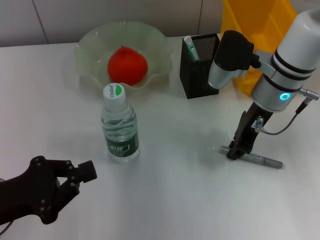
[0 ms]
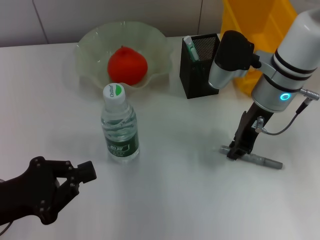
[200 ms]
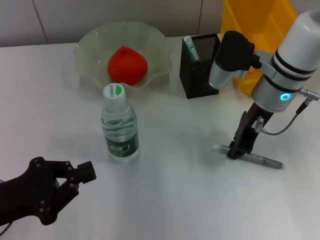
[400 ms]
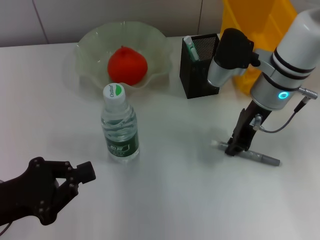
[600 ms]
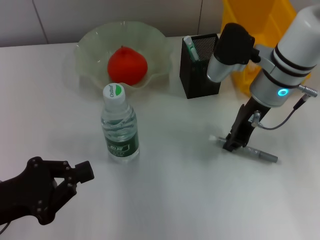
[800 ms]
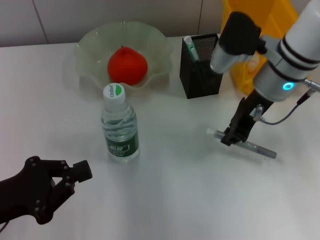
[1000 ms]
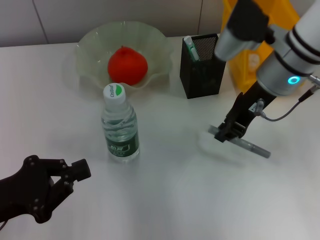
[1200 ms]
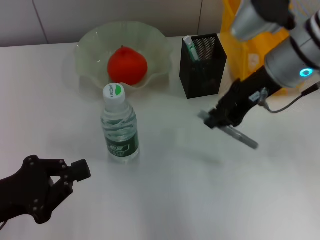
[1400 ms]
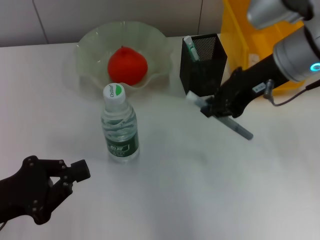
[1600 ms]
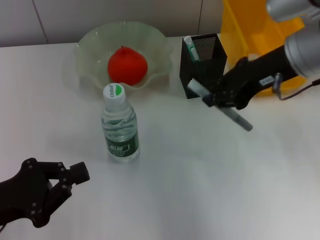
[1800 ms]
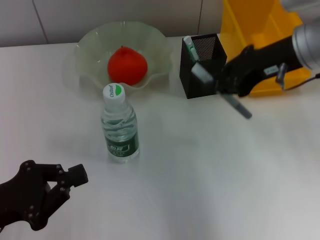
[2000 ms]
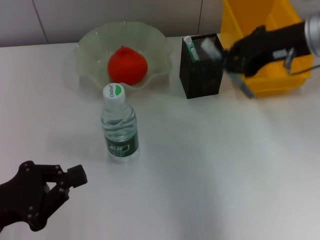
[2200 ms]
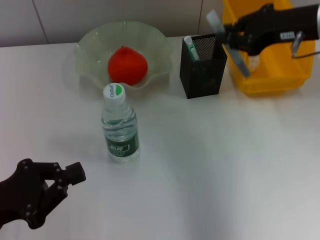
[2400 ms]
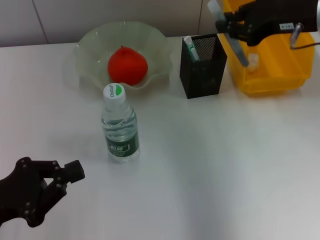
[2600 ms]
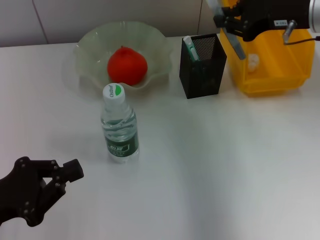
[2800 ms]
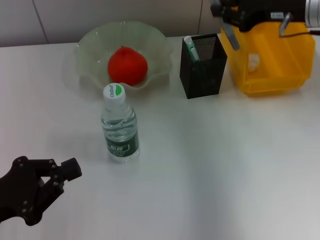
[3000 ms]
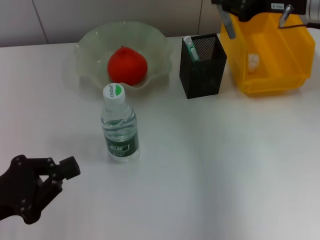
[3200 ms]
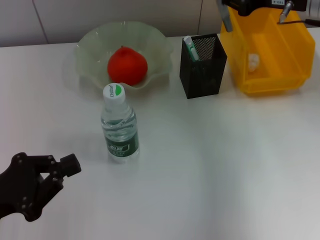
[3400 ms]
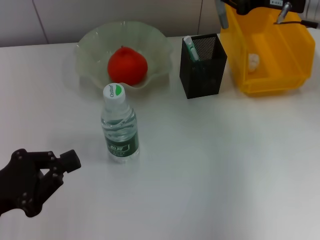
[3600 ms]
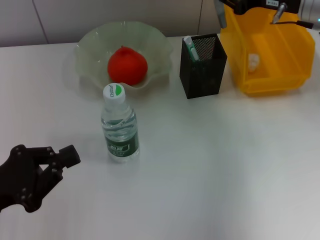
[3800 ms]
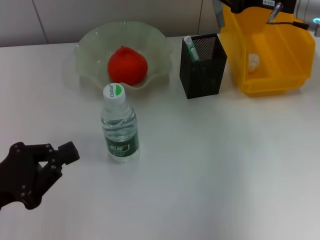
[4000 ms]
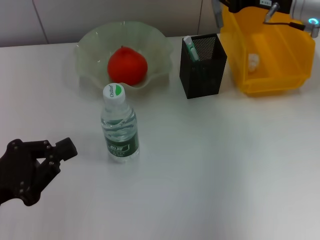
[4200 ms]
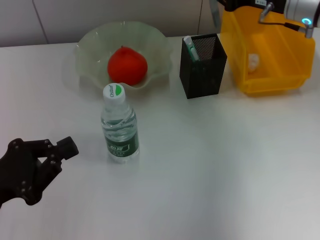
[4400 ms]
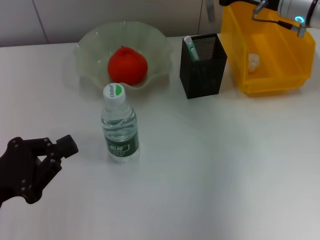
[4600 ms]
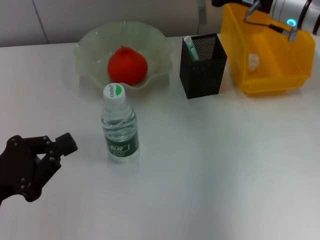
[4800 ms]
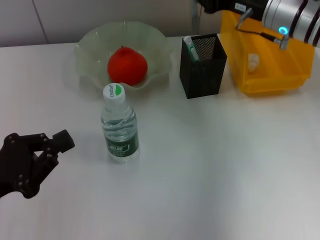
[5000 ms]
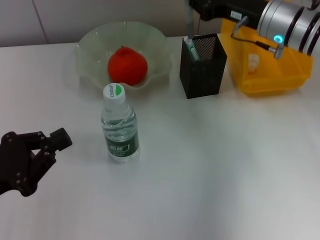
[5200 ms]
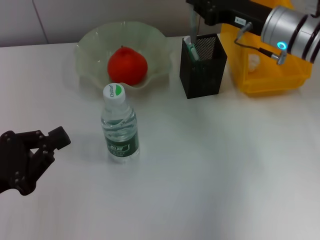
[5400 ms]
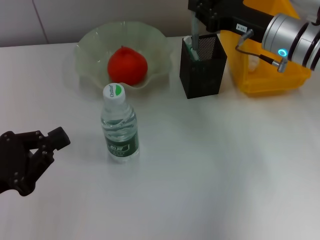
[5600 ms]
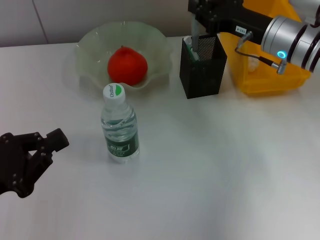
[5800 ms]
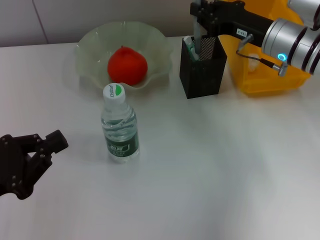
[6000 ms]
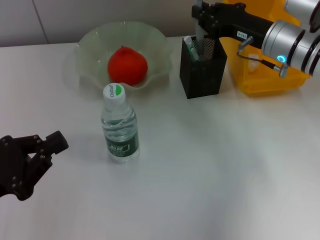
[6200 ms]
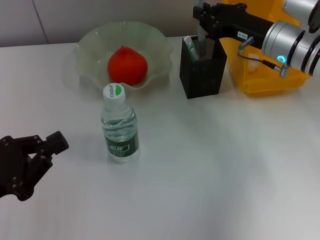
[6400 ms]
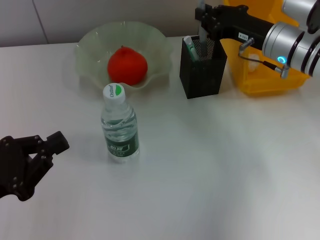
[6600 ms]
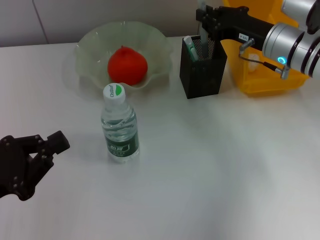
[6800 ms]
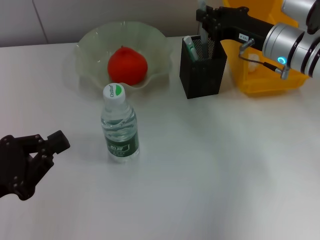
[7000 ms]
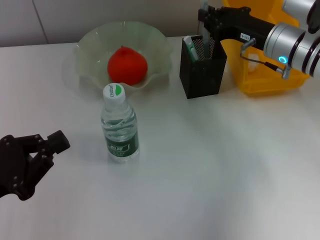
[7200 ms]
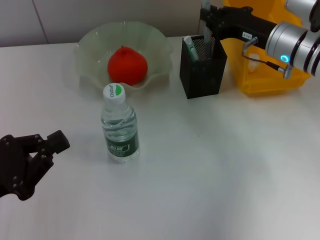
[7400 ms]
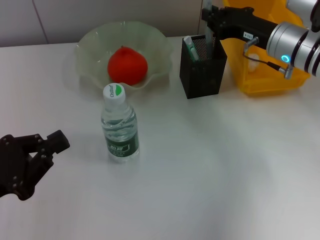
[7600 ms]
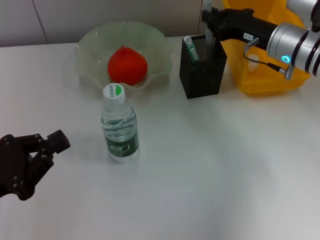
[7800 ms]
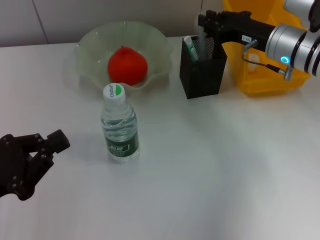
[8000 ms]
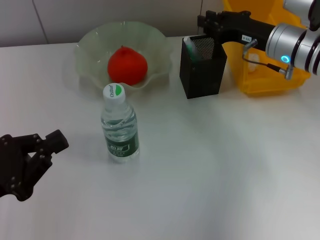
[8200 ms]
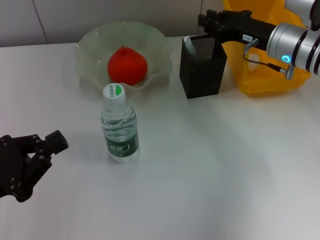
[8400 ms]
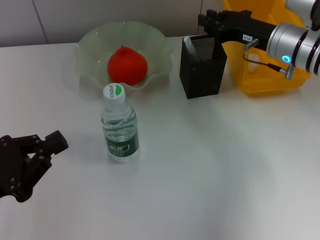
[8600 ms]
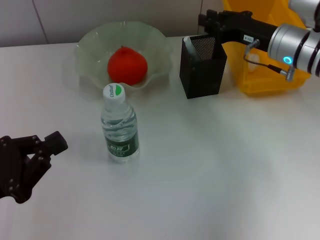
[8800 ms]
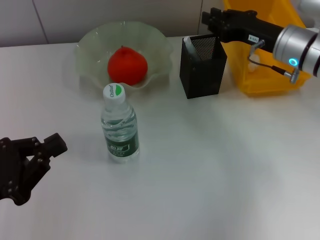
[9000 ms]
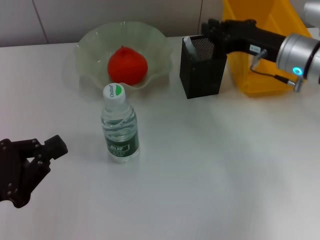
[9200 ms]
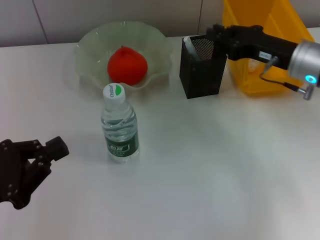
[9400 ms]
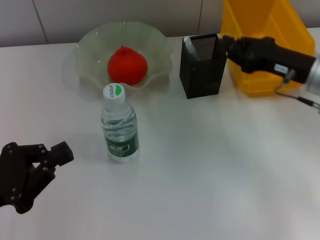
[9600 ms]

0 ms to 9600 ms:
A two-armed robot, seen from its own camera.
Step, 600 ms to 8200 ms: Place the gray glue into the pen holder with the right hand.
0 ms to 1600 ms: The right gripper goes about 10 cm upward.
1600 ms to 3200 ms: The right gripper travels to the right and forward by about 10 cm.
3200 ms to 4800 ms: The right gripper shifts by approximately 5 cm.
4800 ms to 6400 ms: The right gripper changes place by approximately 5 cm.
6400 ms to 8000 ms: The grippers stay close to where they were, moving slightly.
8000 ms to 9600 ms: The right gripper moves backward, about 10 cm.

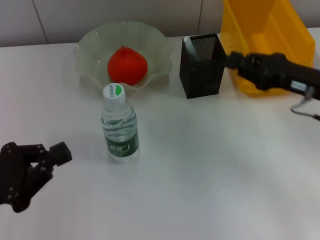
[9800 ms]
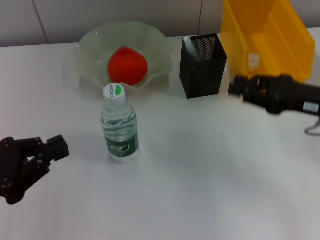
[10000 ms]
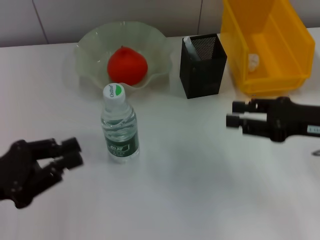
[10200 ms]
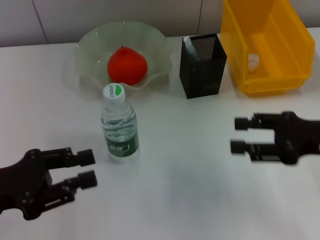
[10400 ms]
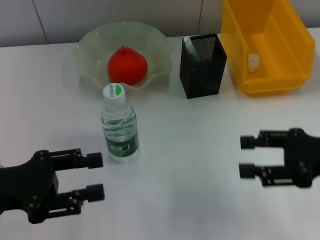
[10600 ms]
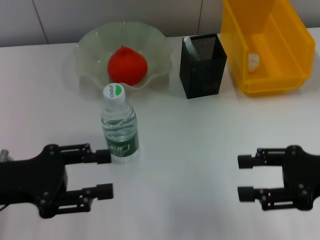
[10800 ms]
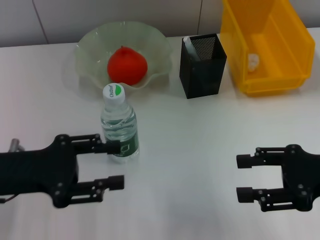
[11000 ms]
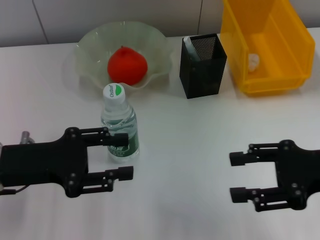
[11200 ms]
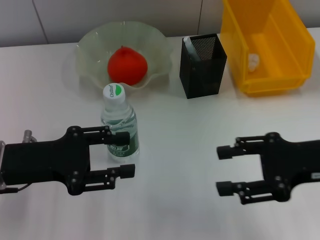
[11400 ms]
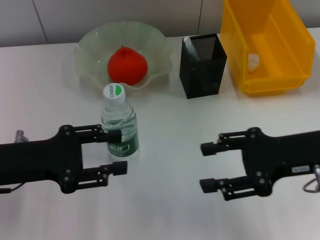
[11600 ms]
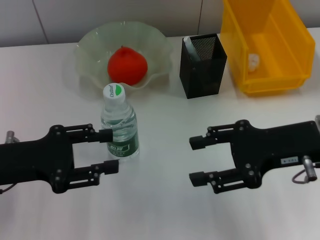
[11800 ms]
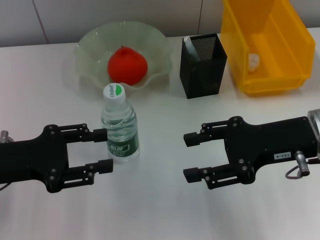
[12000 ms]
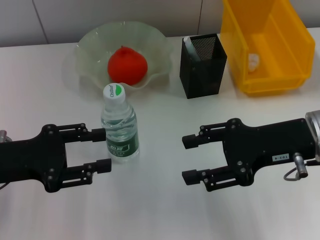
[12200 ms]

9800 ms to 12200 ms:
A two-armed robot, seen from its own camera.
9800 ms to 11000 ms: The right gripper moves backward, some 10 cm, and opens its fingers. Meanwhile the left gripper moves roughly 5 cm, and opens.
11000 ms to 12200 ms: The right gripper shifts about 10 cm to the left and forward.

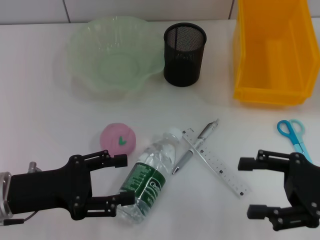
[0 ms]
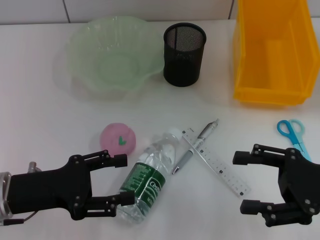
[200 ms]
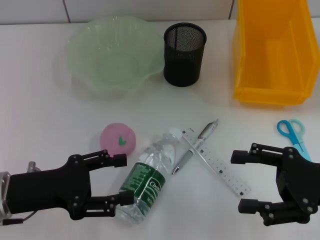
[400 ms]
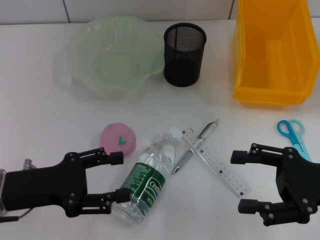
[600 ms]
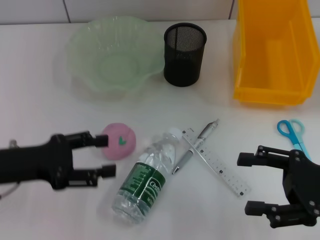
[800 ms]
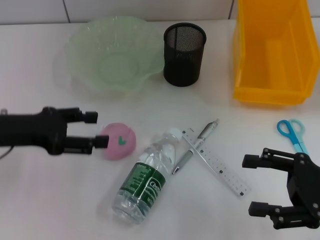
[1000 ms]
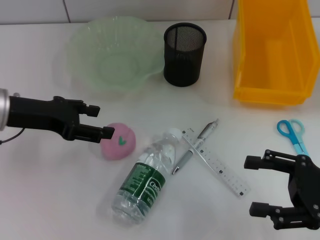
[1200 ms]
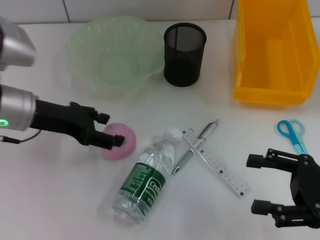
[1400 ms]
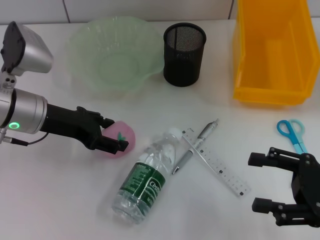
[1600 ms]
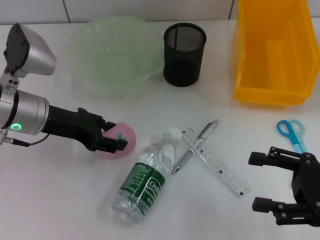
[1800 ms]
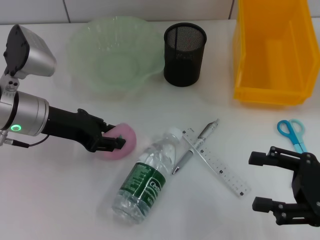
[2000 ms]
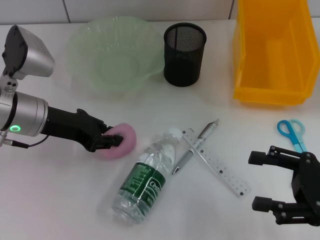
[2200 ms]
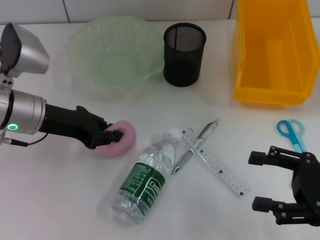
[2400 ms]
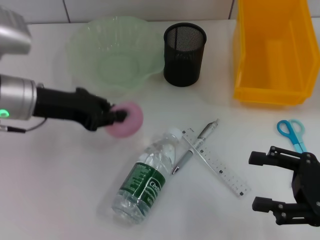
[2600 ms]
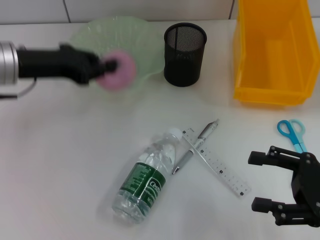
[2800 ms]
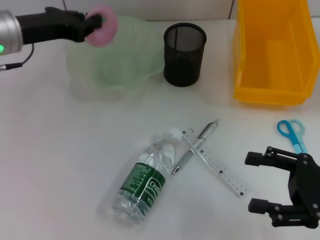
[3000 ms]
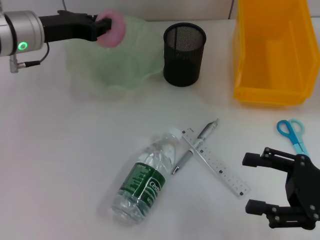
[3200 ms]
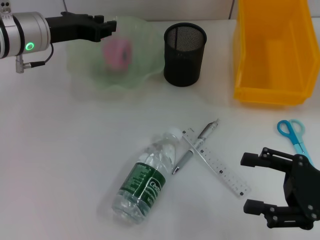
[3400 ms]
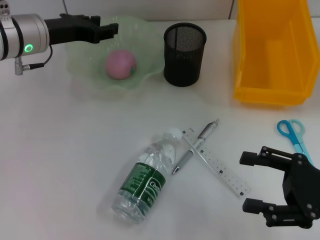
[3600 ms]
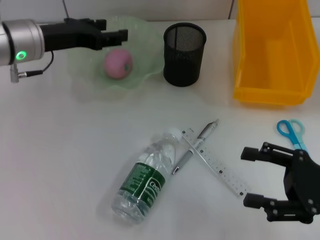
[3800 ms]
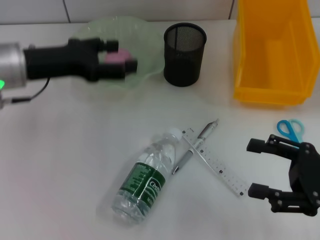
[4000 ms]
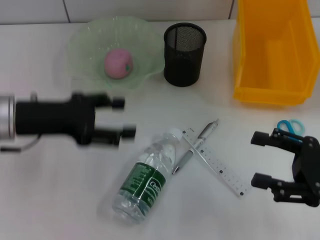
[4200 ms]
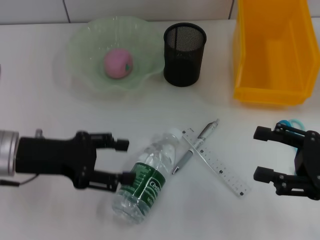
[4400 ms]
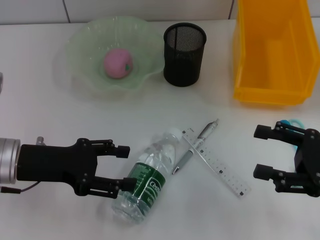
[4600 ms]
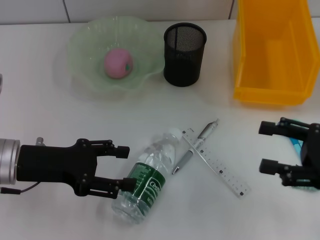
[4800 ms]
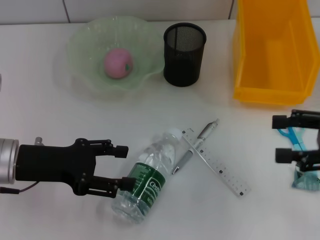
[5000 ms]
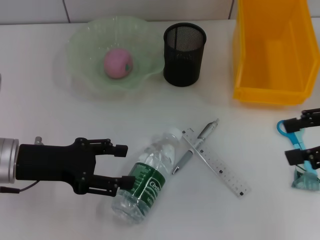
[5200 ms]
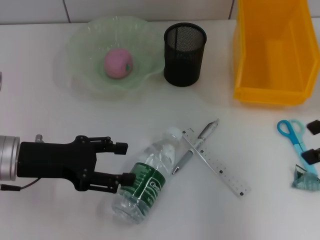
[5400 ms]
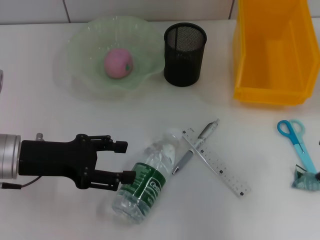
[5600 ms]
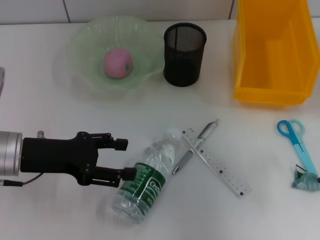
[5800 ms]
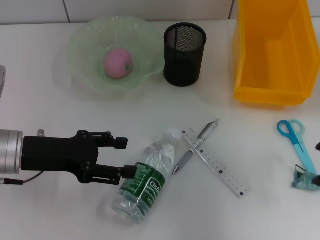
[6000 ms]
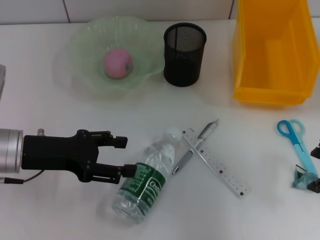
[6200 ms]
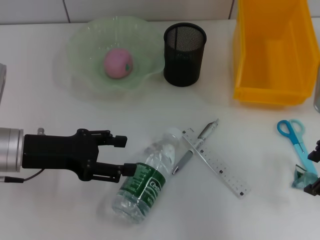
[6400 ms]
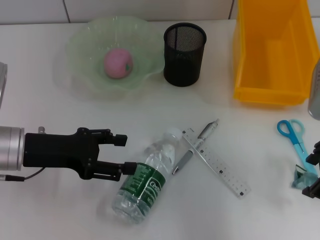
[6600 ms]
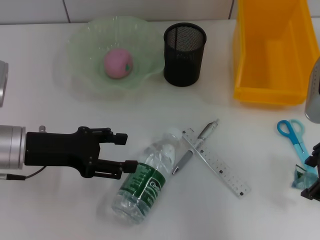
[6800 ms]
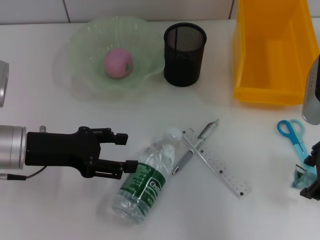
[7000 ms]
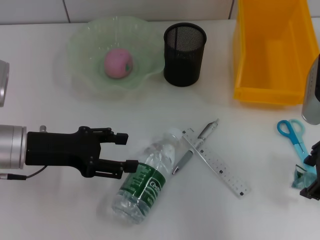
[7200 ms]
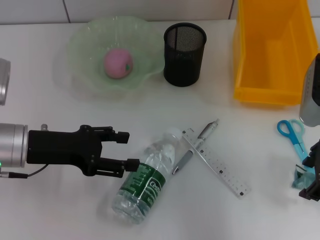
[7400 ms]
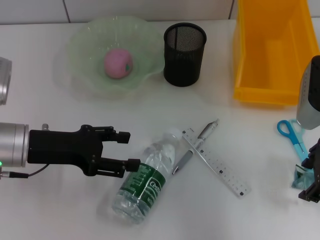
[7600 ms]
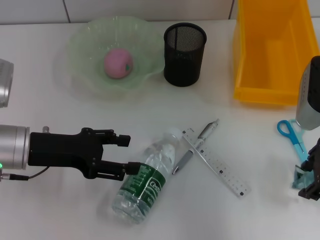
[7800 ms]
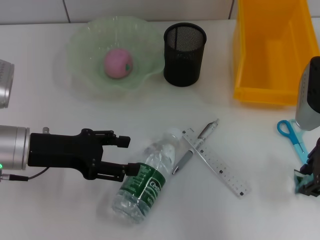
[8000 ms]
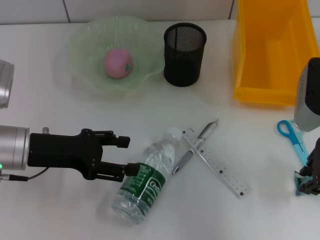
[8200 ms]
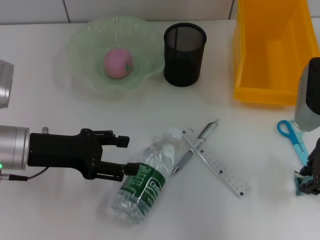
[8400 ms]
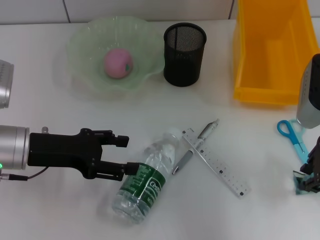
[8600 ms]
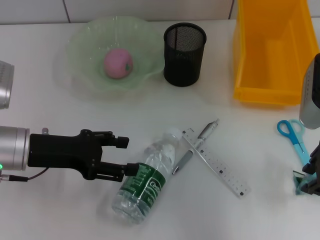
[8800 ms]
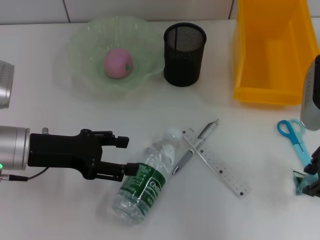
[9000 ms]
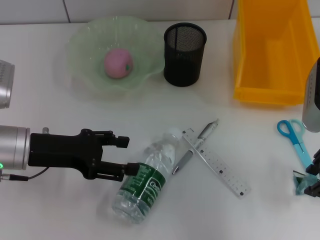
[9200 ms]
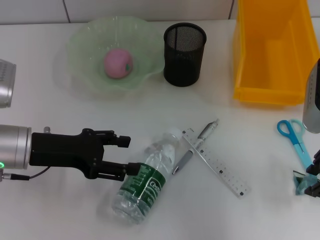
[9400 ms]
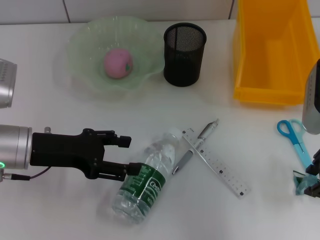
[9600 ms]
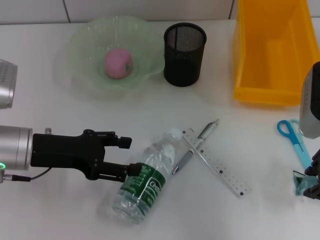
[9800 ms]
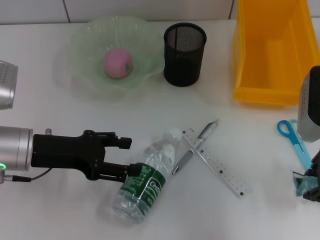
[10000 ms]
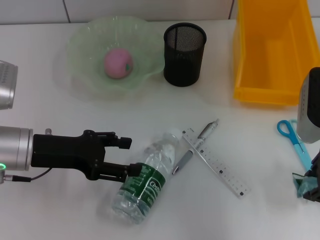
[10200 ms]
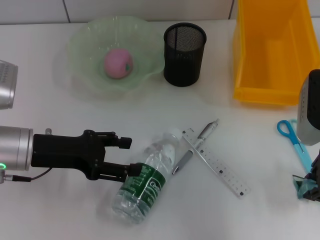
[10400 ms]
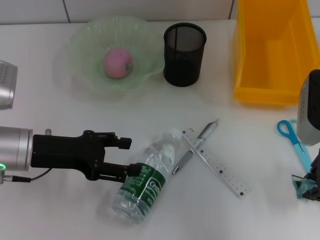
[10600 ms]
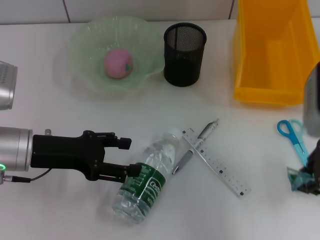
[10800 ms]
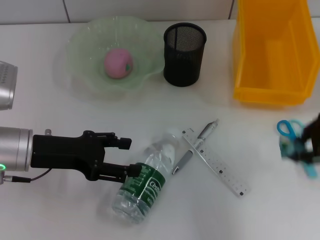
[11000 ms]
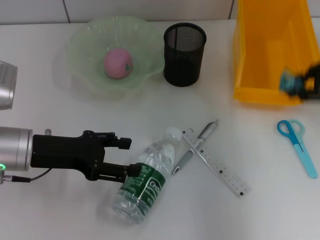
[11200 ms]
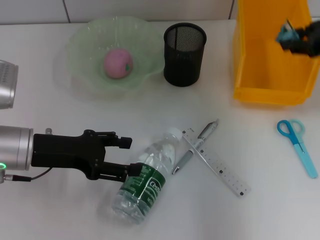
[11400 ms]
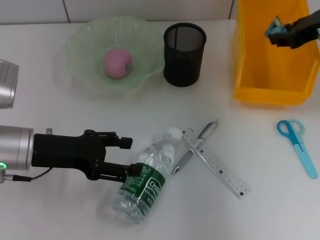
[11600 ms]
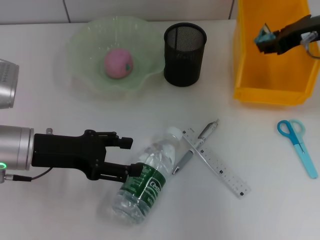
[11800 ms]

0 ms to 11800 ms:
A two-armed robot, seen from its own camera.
Step, 0 ms to 2200 ms: Grab the peach with the left hand.
Step, 2400 ms to 3600 ms: Place the peach into the fruit bowl with the left hand.
Step, 3800 ms to 10400 ms: Grab the plastic with the right hand.
0 ms to 1400 ms: The left gripper shifts some 15 cm forward and upward.
1400 ms to 3000 ms: The left gripper goes roughly 5 cm forward, and closes.
3000 ms to 4400 ms: The left gripper moves backward and downward, about 15 cm, and opens.
4400 ms to 6000 ms: The right gripper heads upward and forward, covering roughly 15 cm.
6000 ms to 7400 ms: The right gripper changes place by some 5 cm.
7400 ms to 8800 ms: The right gripper closes its fingers.
8800 ms to 10400 ms: There are only small adjustments of the grippers.
10400 ms to 11800 ms: The right gripper heads forward, covering about 10 cm.
